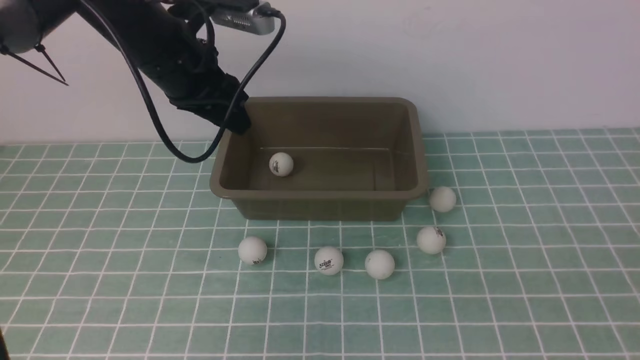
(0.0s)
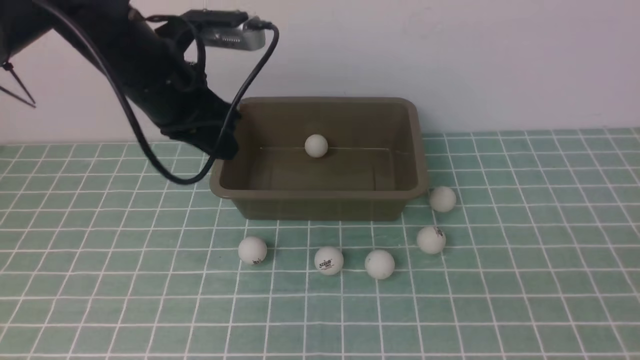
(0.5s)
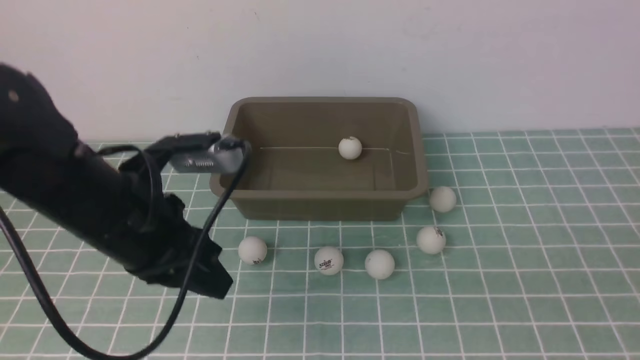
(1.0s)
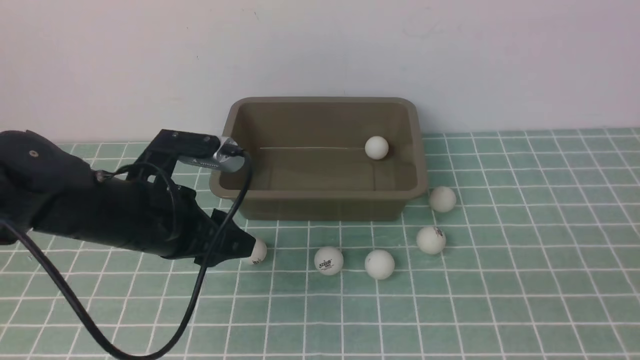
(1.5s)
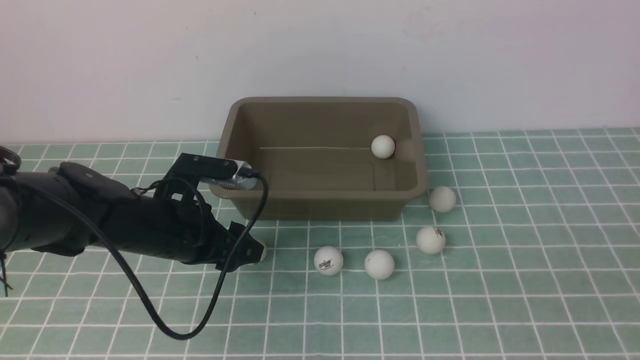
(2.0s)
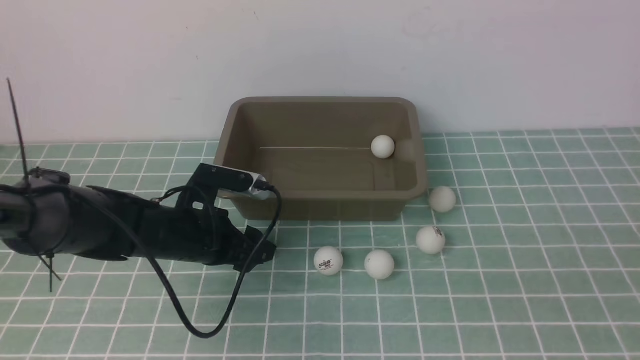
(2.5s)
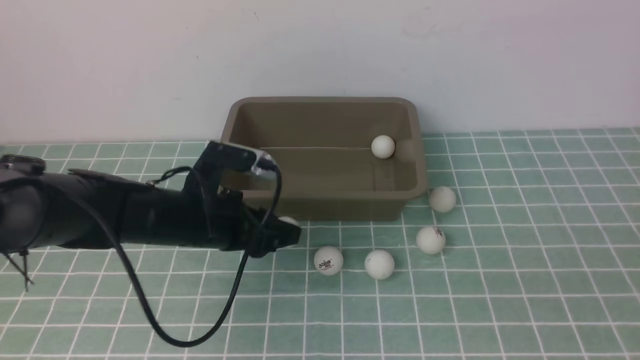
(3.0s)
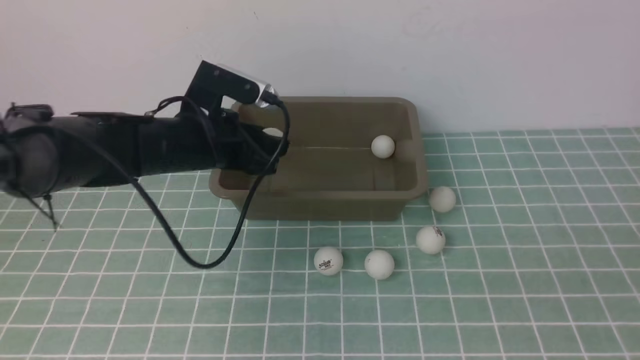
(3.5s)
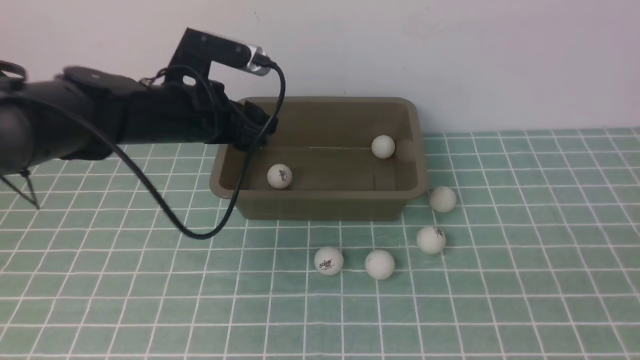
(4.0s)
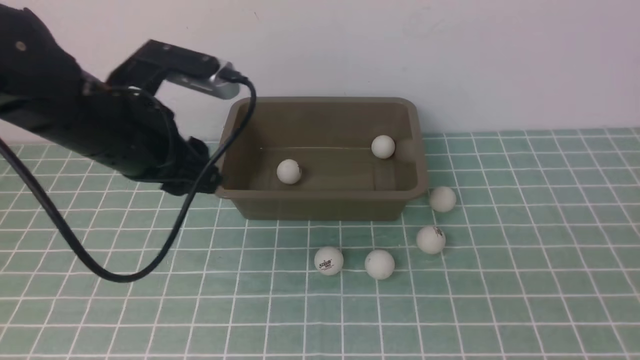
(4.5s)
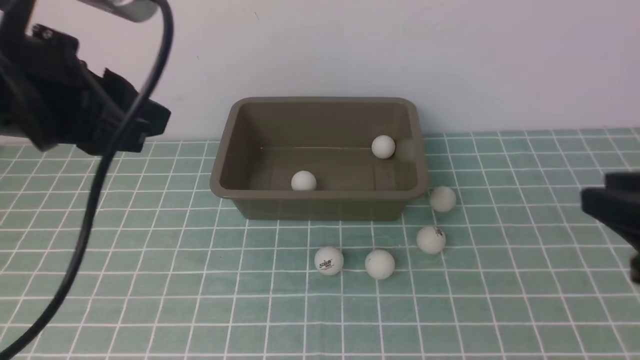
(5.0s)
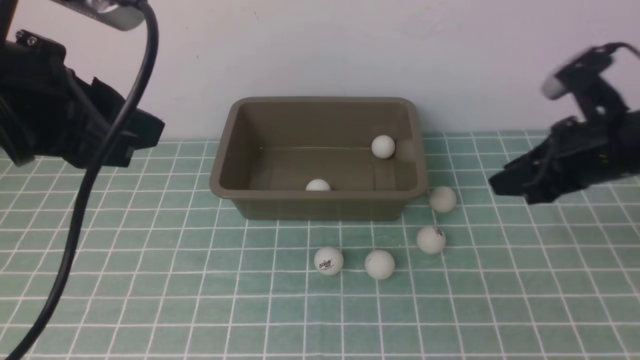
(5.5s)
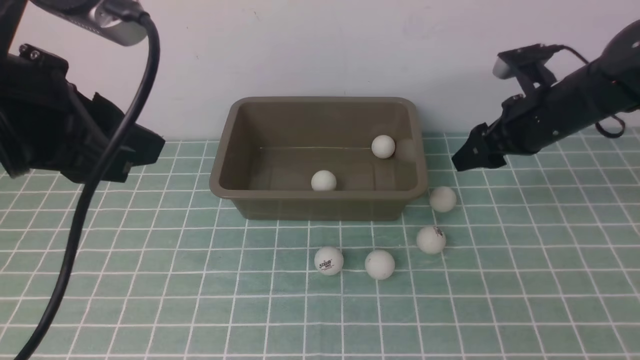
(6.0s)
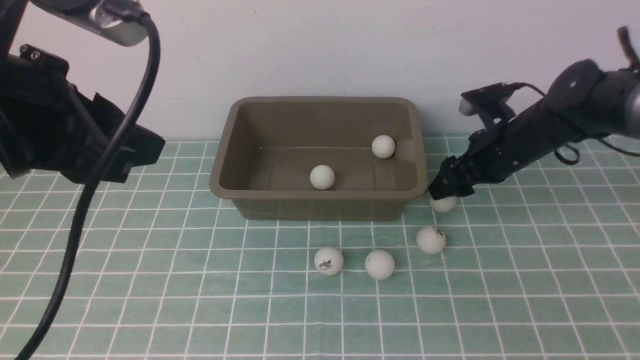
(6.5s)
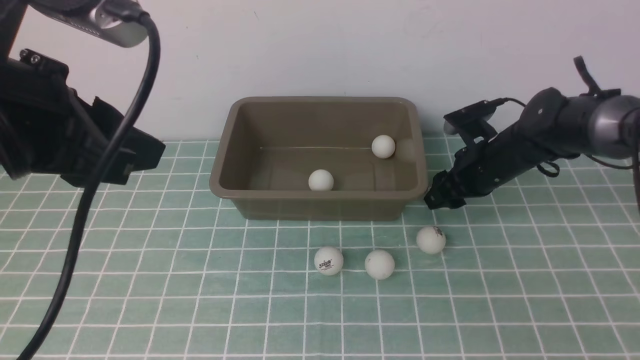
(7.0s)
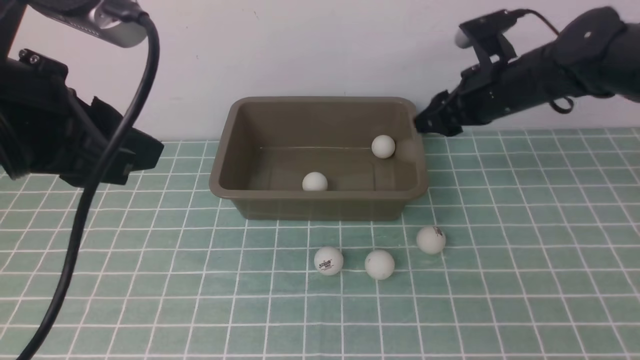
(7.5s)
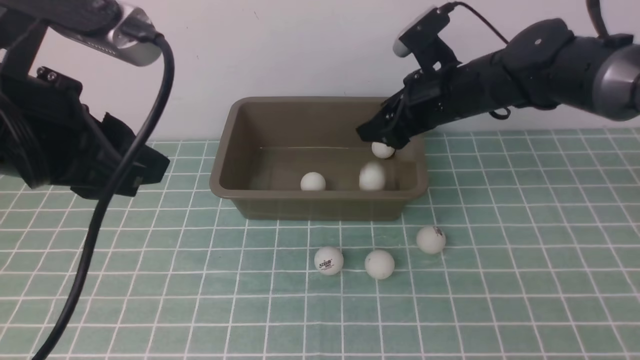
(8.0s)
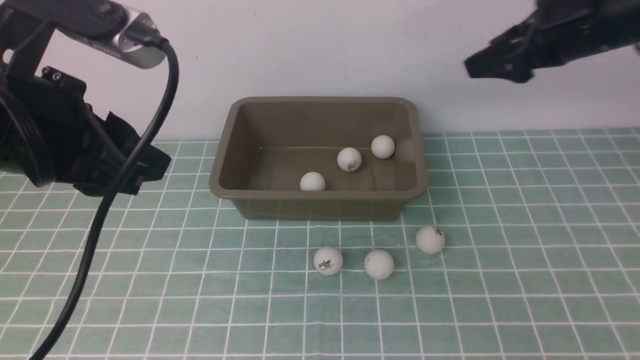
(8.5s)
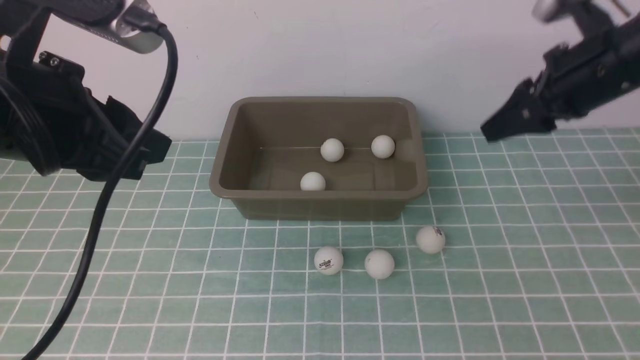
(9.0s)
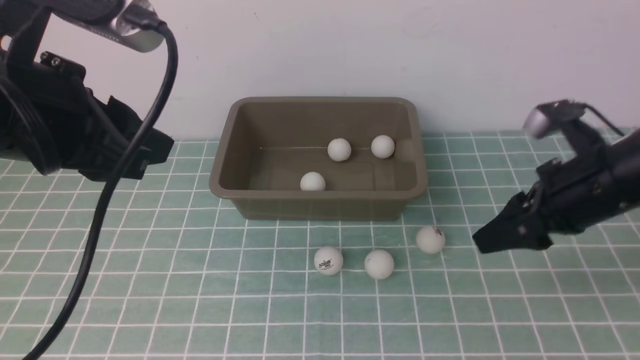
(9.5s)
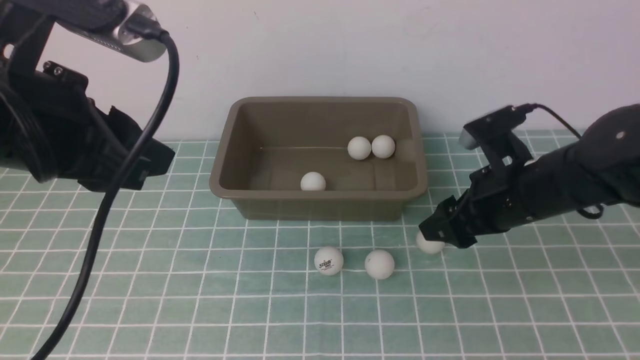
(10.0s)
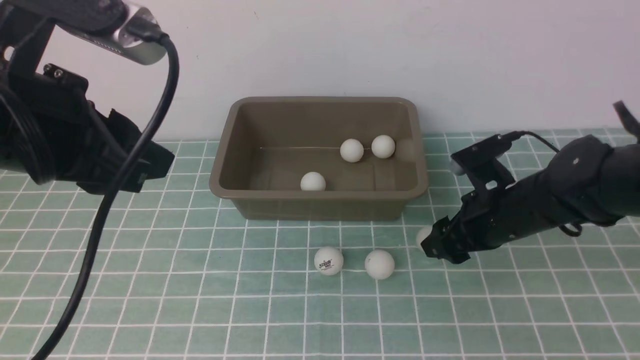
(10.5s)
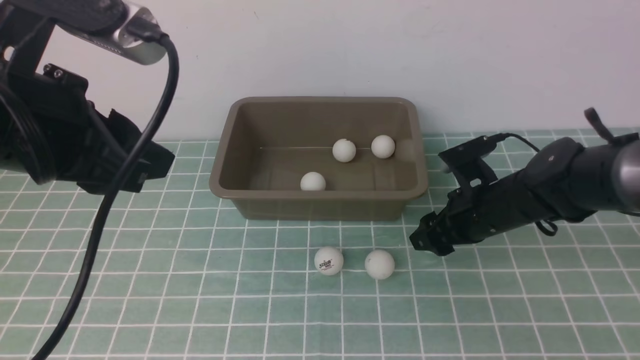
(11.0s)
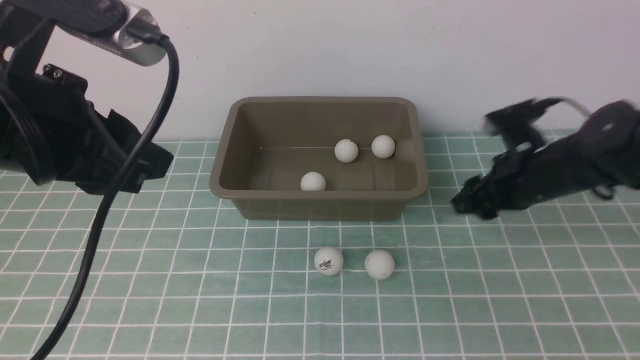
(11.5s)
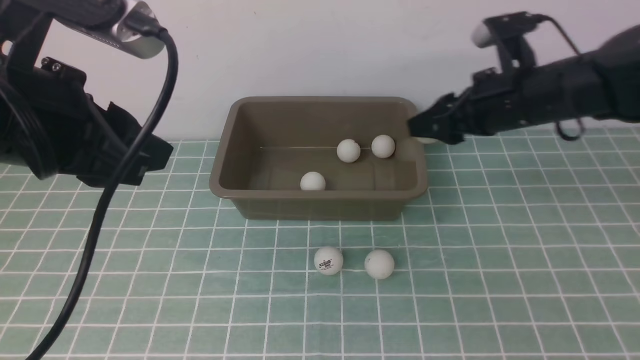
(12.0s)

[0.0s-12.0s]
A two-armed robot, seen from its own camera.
Step, 0.0s to 3.0s: use the left arm to clamp the table tennis ball closest to it.
Step, 3.5s to 4.0s: use the left arm to put the table tennis ball into the box.
Step, 4.5s to 7.0s: use the right arm to clamp the table tennis ball closest to it.
Step, 7.5s to 8.0s: use the right arm to put the table tennis ball into the box.
Step, 8.5s to 11.0s: use the right arm to clamp the table tennis ball closest to it.
0.0s to 2.0s: The left gripper heads downward, covering roughly 15 cm, and opens up.
2.0s to 4.0s: The right gripper is displaced forward by roughly 10 cm, while the left gripper shifts approximately 25 cm upward.
4.0s to 6.0s: The right gripper moves forward and downward, approximately 35 cm, and opens.
6.0s to 8.0s: The right gripper travels upward and to the left by roughly 10 cm.
8.0s to 10.0s: The right gripper goes about 10 cm backward.
10.0s to 12.0s: The right gripper heads forward, covering some 5 cm.

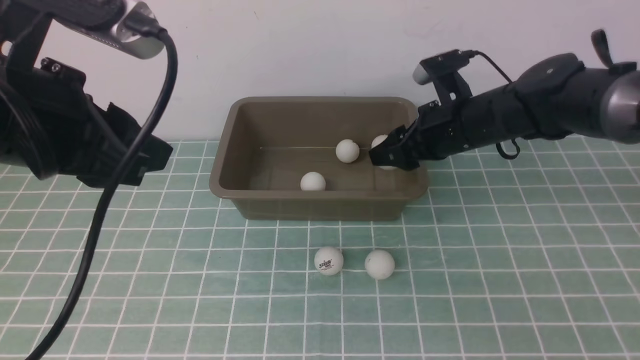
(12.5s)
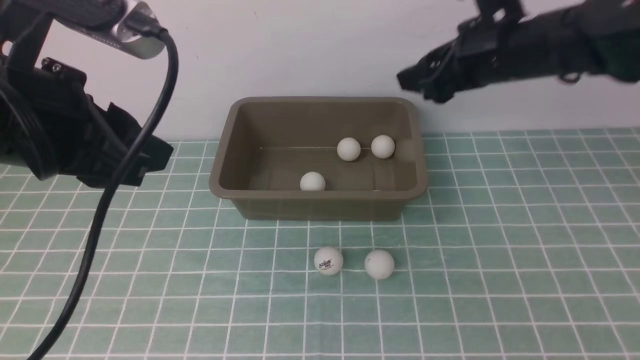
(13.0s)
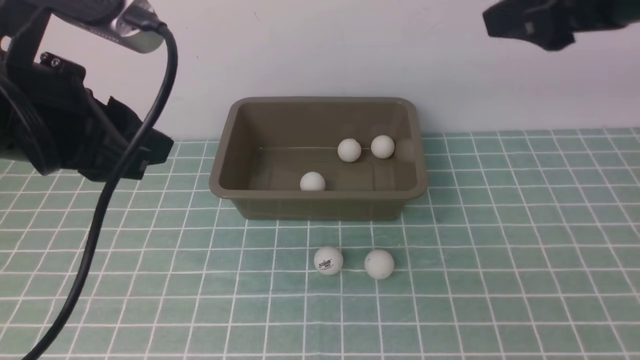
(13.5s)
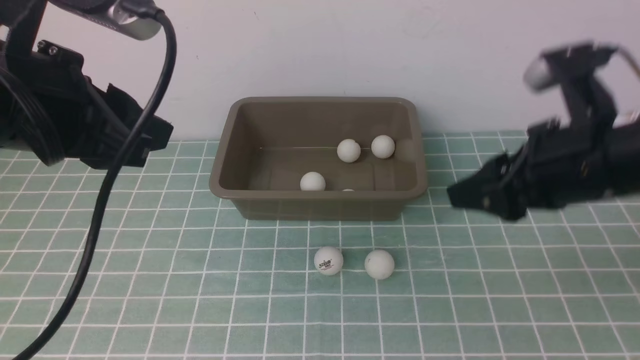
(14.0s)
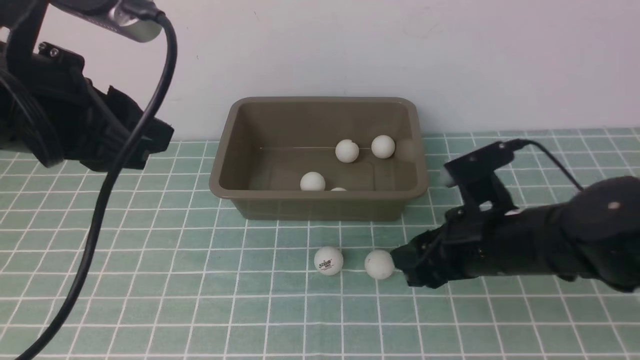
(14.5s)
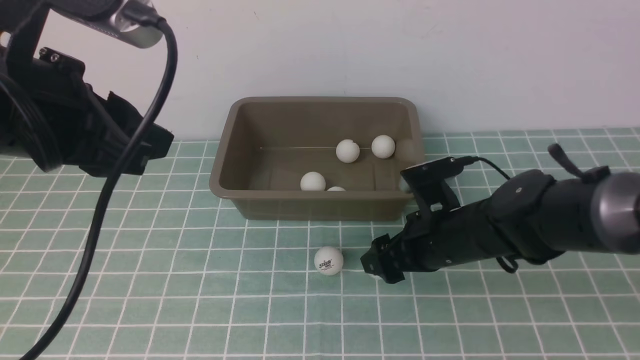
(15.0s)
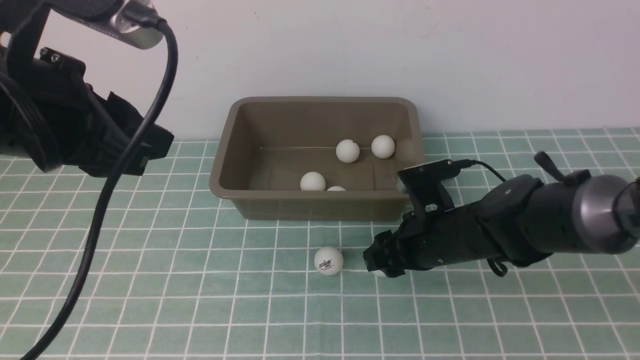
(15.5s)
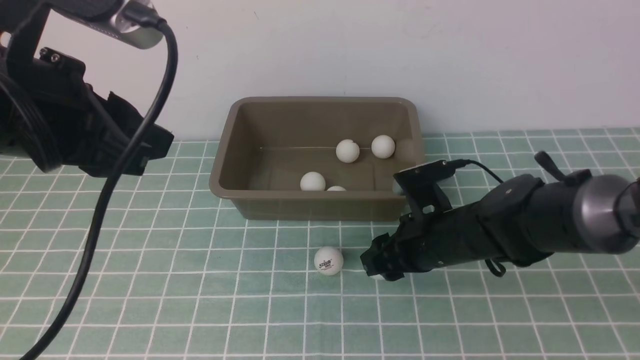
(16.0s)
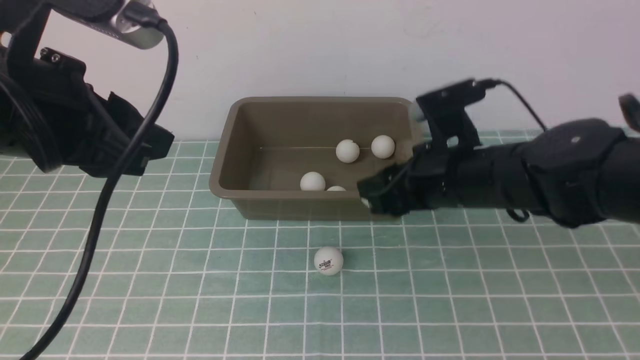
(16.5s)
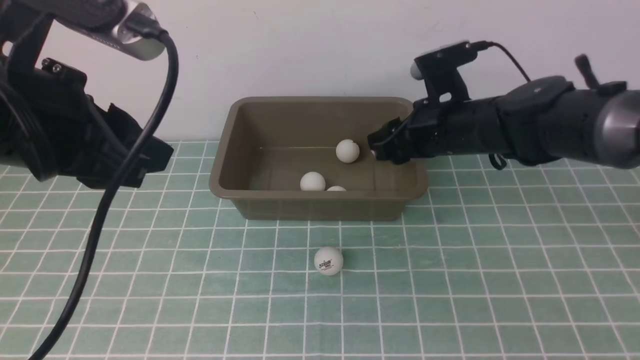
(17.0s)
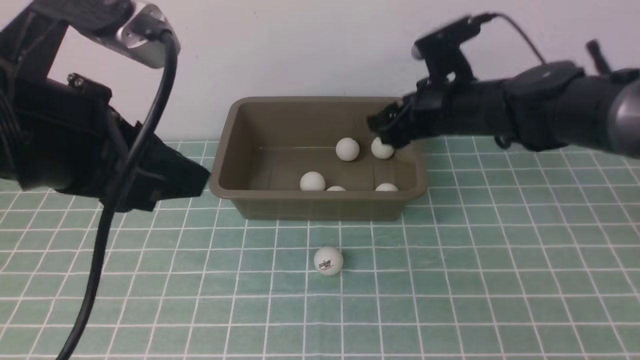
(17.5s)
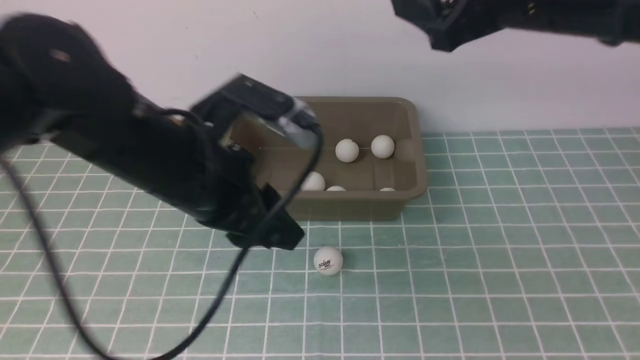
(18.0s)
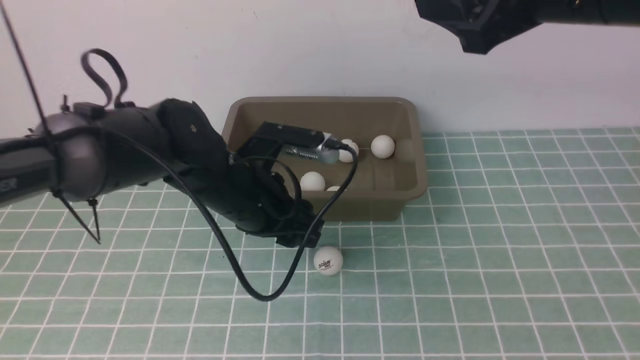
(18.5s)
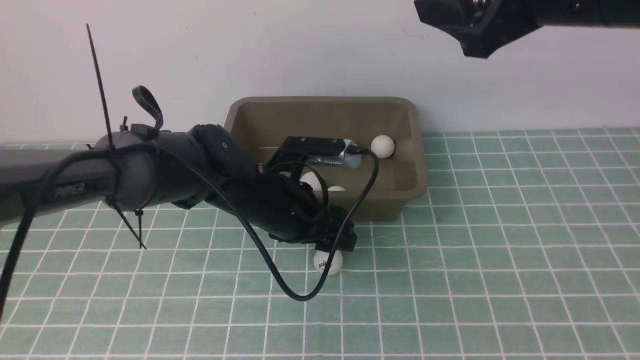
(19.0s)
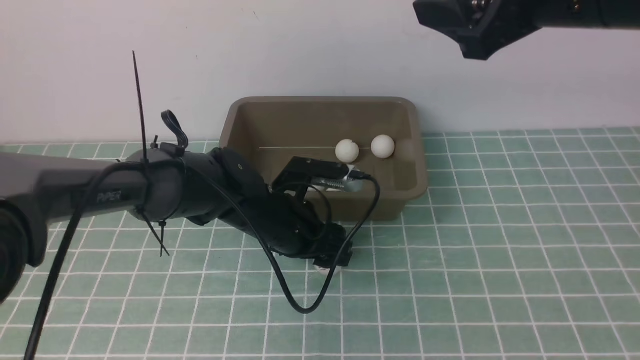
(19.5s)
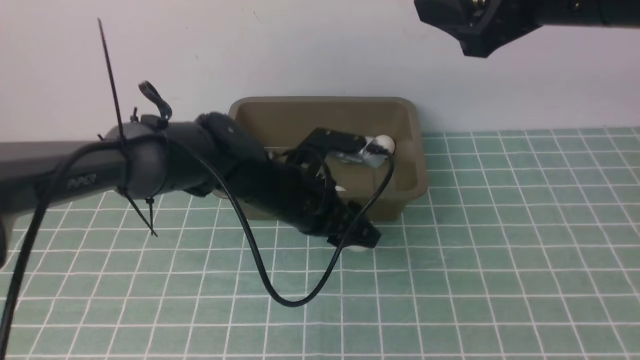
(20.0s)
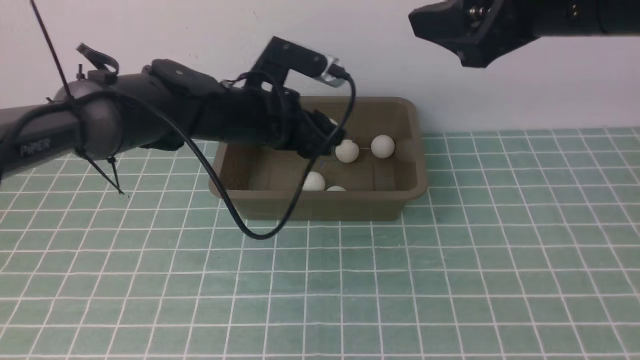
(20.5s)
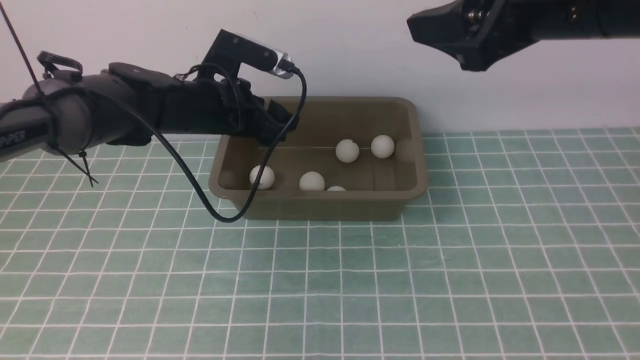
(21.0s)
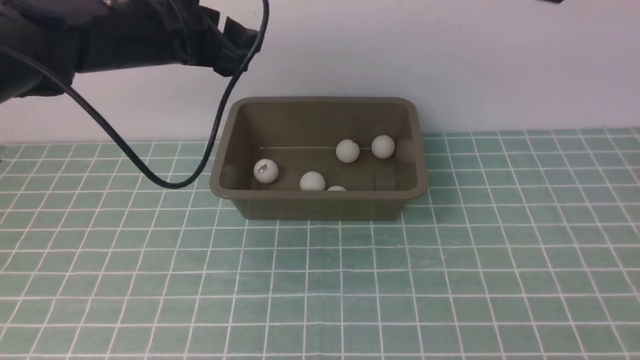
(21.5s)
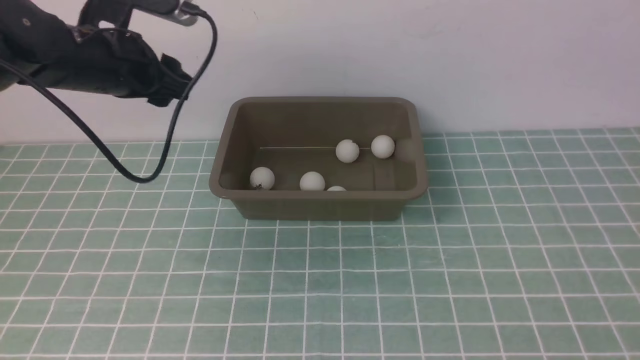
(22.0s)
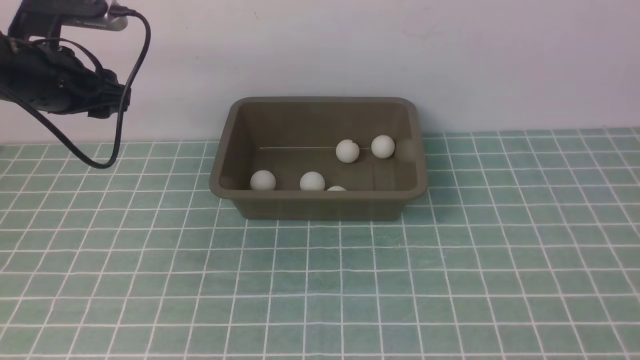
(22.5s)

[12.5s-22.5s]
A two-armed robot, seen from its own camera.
Step, 13.0s to 15.5s: use the right arm to clamp the table tennis ball closest to it.
Step, 16.5s to 17.5s: use the right arm to put the table tennis ball into the box.
Step, 18.0s to 20.0s: use the left arm to clamp the table tennis ball closest to it.
Step, 20.5s to 21.0s: use the left arm to put the table tennis ball into the box.
12.5s to 14.5s: The right gripper is displaced backward by approximately 15 cm, and goes upward and returns, some 20 cm each way.
14.5s to 16.5s: The right gripper shifts approximately 5 cm upward.
16.5s to 18.5s: The right gripper moves upward, approximately 20 cm, and opens its fingers. The left gripper shifts approximately 25 cm downward, forward and to the right, and opens its fingers.
18.5s to 20.5s: The left gripper moves forward, roughly 10 cm, and moves some 5 cm downward and comes back.
20.5s to 22.5s: The right gripper goes about 15 cm backward and to the right. The left gripper heads to the left, covering about 20 cm.
